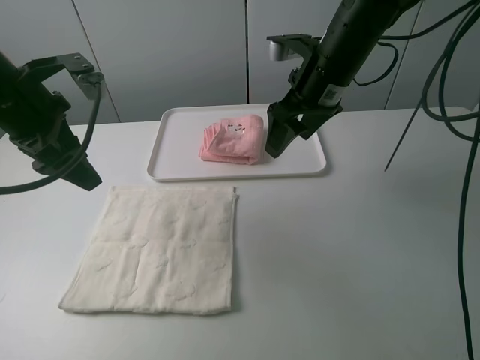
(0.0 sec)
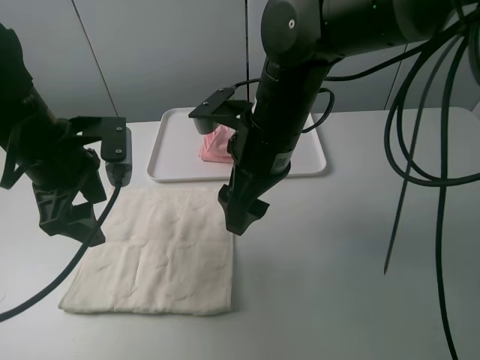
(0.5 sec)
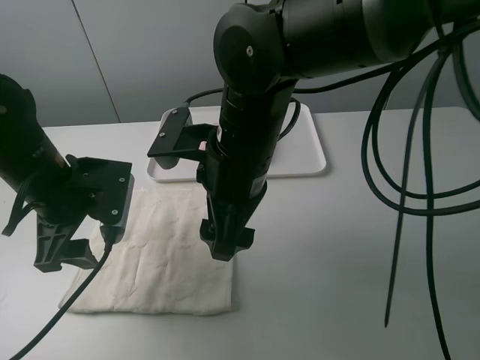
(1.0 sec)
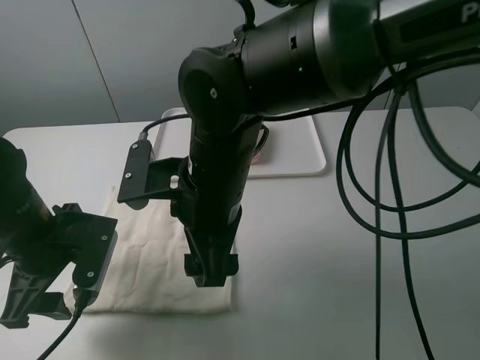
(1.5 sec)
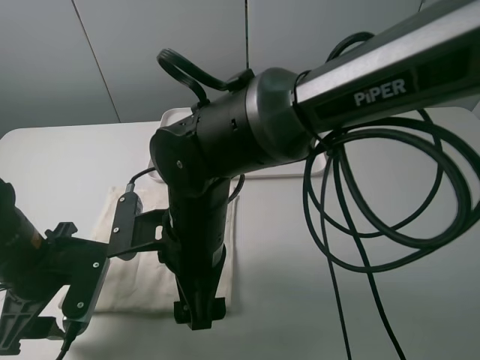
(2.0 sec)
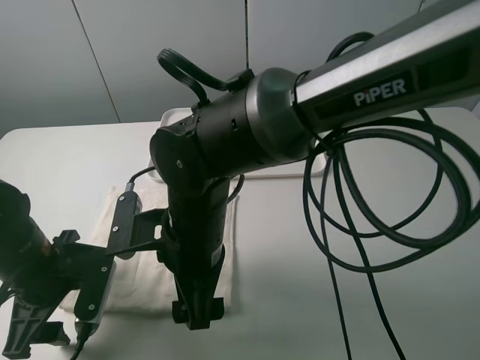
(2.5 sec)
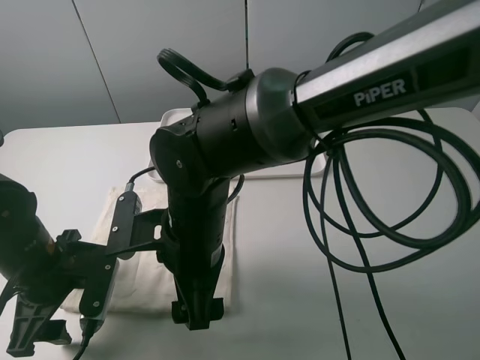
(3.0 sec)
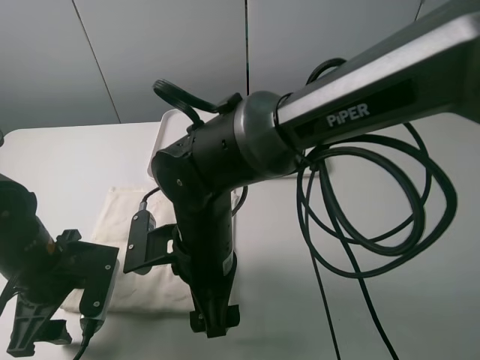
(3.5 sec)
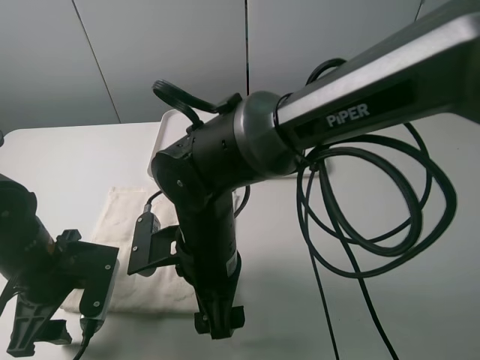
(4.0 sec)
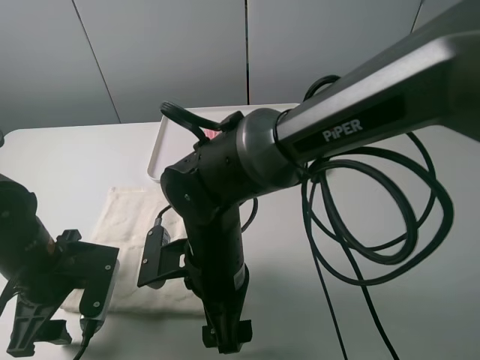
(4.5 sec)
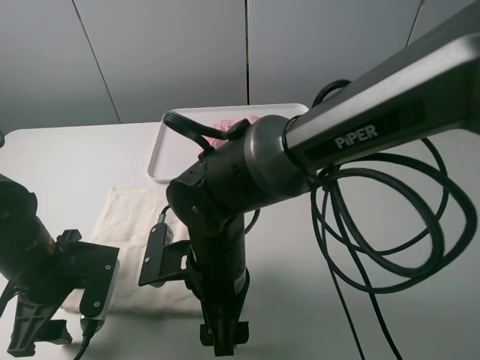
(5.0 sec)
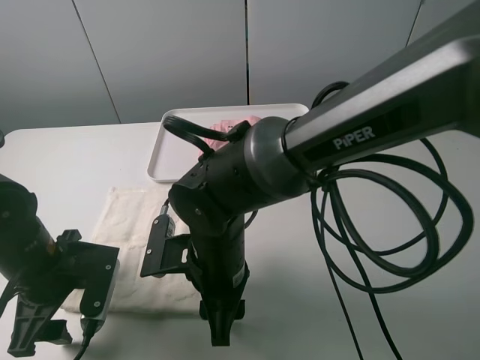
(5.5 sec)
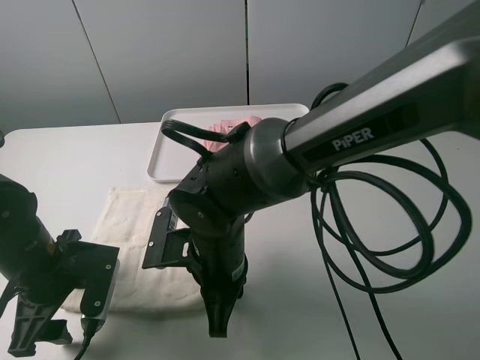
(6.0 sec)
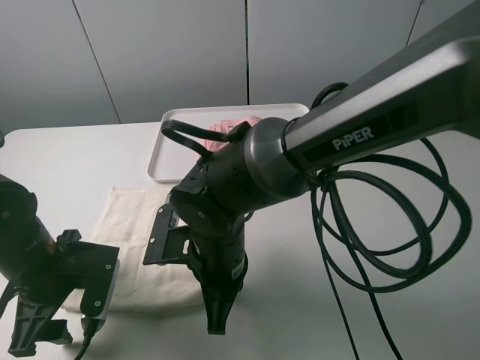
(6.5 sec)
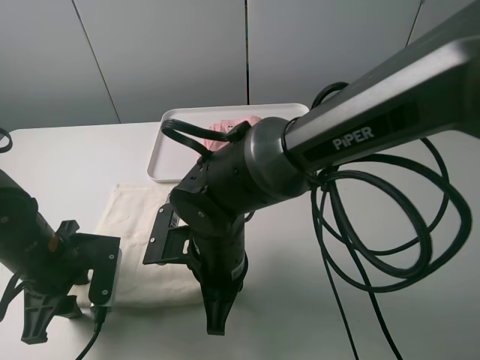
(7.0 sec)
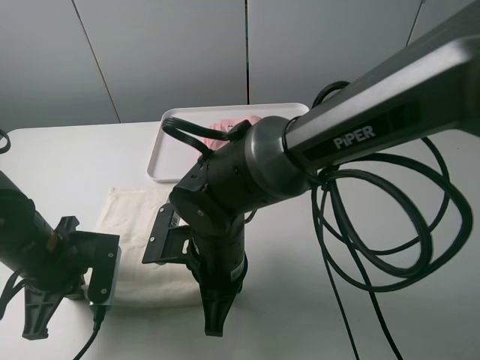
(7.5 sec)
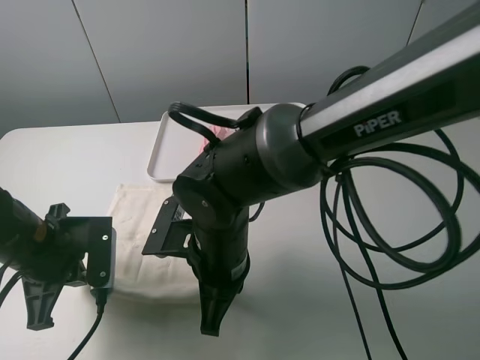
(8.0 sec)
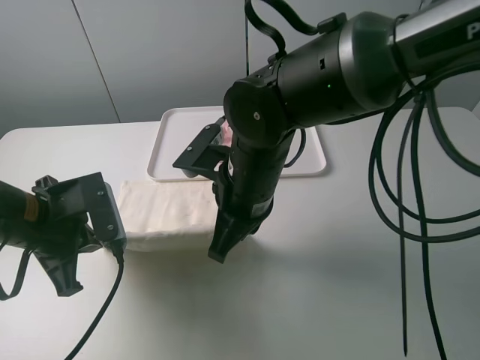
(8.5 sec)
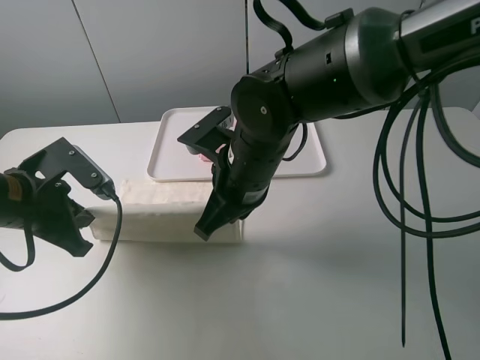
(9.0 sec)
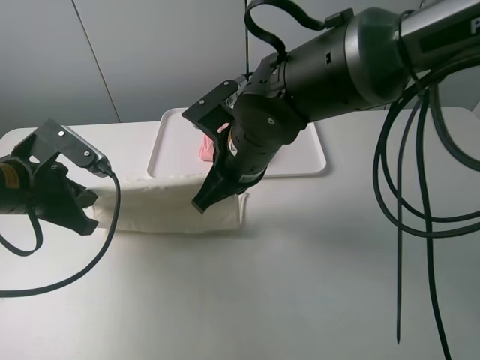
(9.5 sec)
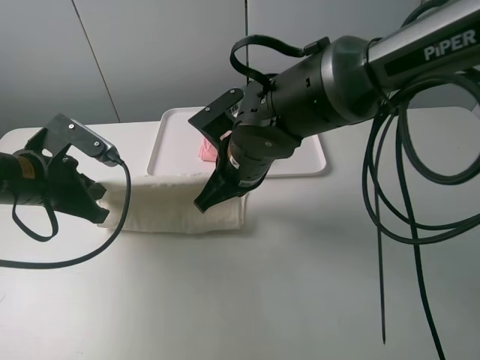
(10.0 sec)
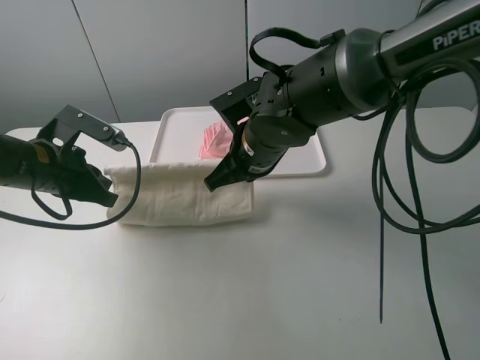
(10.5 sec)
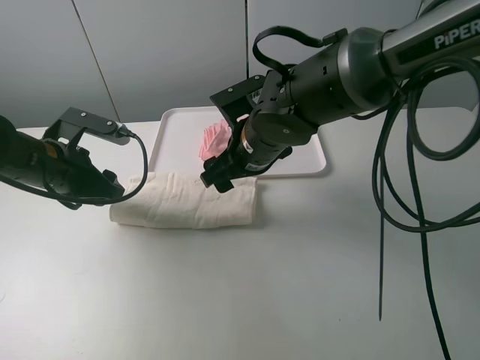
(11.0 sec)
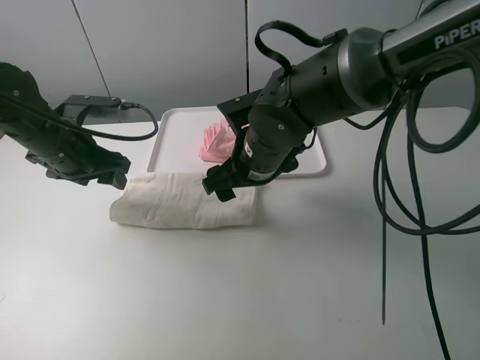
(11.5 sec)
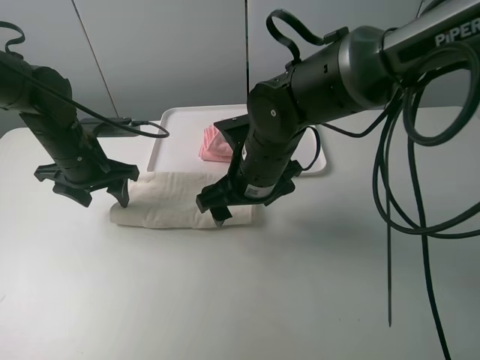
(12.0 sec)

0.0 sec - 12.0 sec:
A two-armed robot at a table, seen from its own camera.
Task of the whole recording: fold one of the towels by two grippers and place it on the tray,then fold another towel by two grippers and place it on the folded towel.
Step, 0.0 sec - 7.5 sec: Grasp the white towel with the left gripper.
Step, 8.0 sec - 11.0 sec: Fold the white towel upwards with the left gripper.
0.0 sec - 2.0 sec: The right gripper is displaced backward, to the left and downward by approximately 25 cm. Meanwhile the left gripper travels downward and backward by approximately 20 cm.
4.0 sec - 6.0 sec: The right gripper closes up.
6.0 sec - 8.0 sec: The left gripper closes up.
8.0 sec - 10.0 sec: The right gripper is displaced forward by about 10 cm. Meanwhile the left gripper moves forward, approximately 5 cm.
10.0 sec - 12.0 sec: The right gripper opens its fingers. The left gripper travels forward by roughly 10 cm, and opens its fingers.

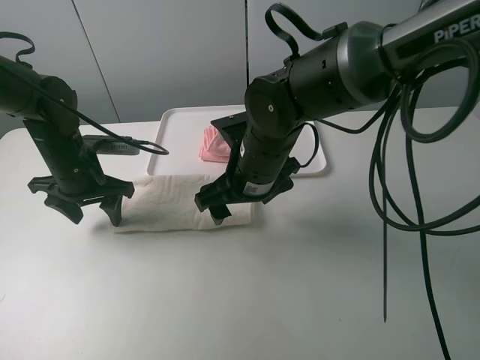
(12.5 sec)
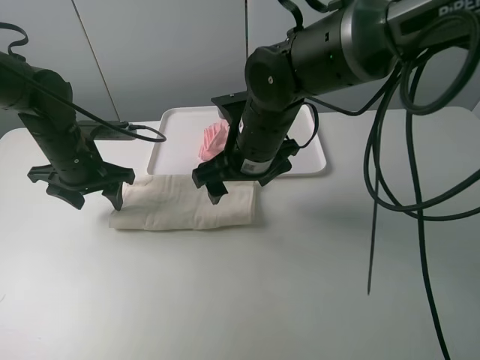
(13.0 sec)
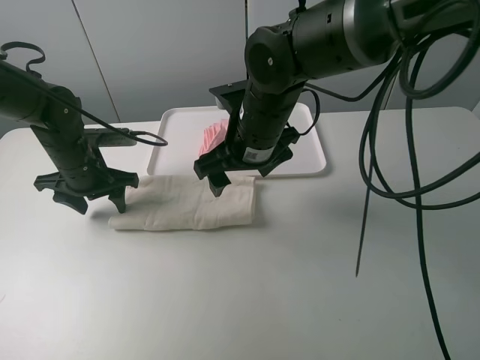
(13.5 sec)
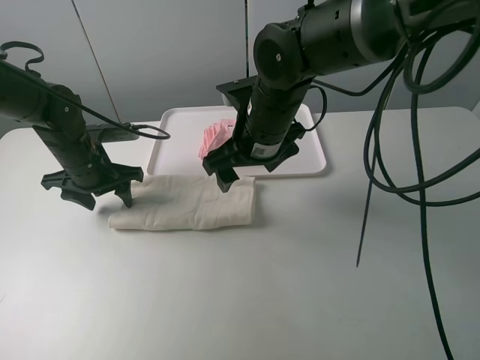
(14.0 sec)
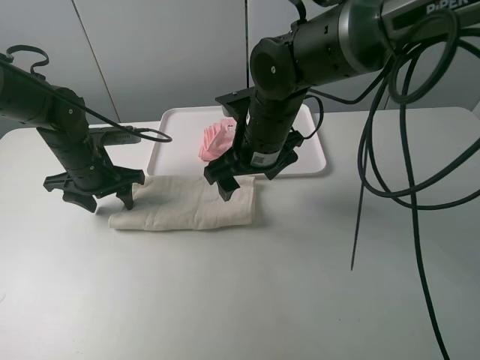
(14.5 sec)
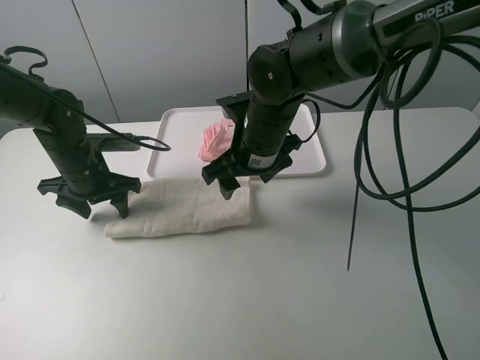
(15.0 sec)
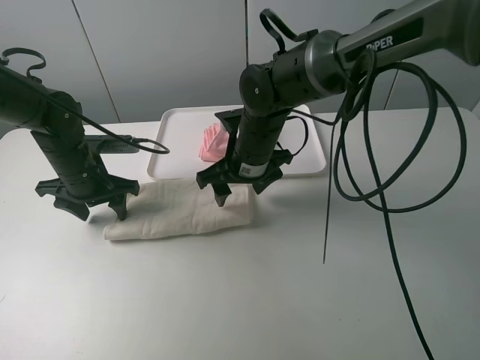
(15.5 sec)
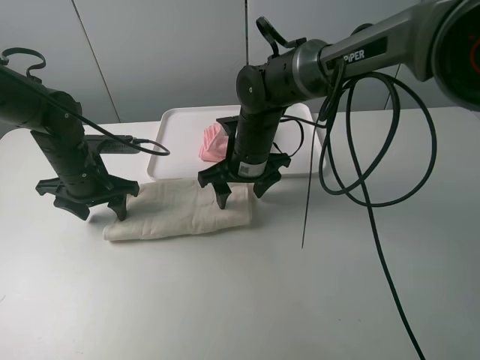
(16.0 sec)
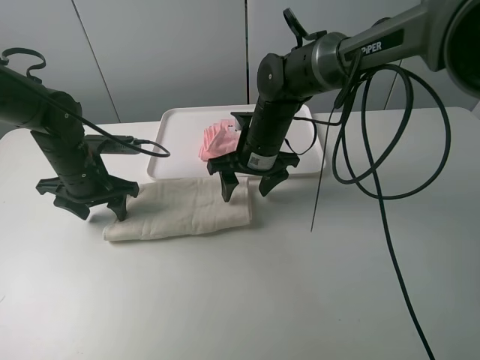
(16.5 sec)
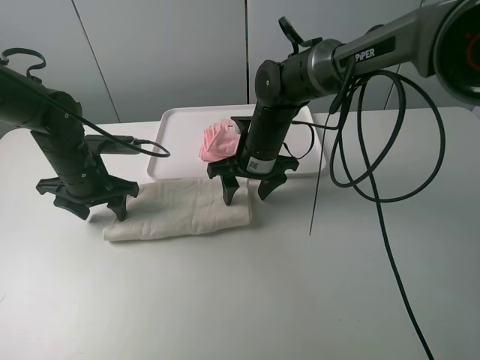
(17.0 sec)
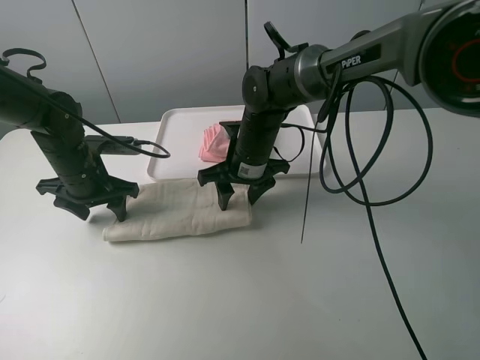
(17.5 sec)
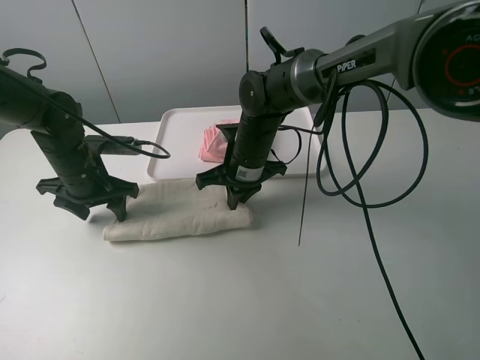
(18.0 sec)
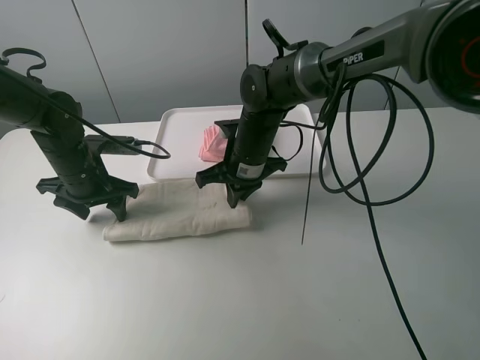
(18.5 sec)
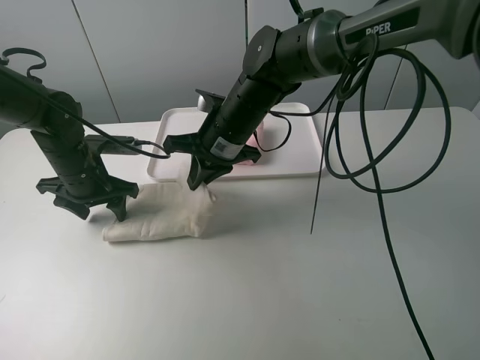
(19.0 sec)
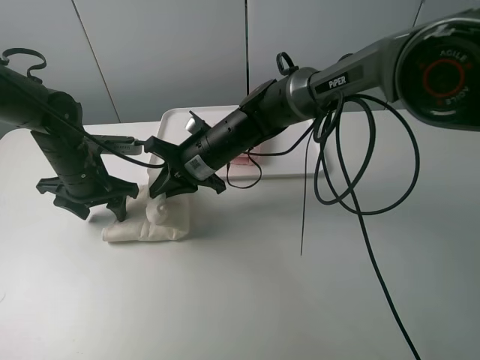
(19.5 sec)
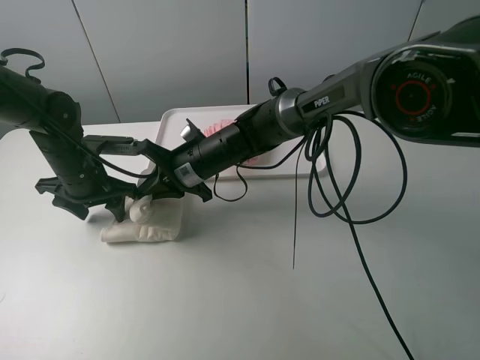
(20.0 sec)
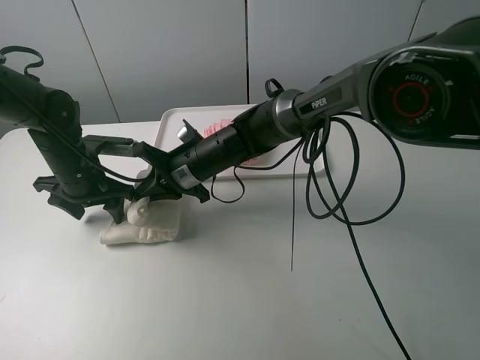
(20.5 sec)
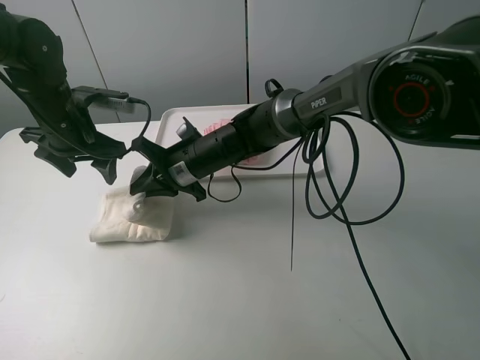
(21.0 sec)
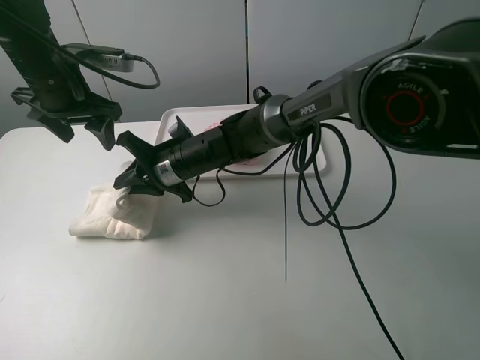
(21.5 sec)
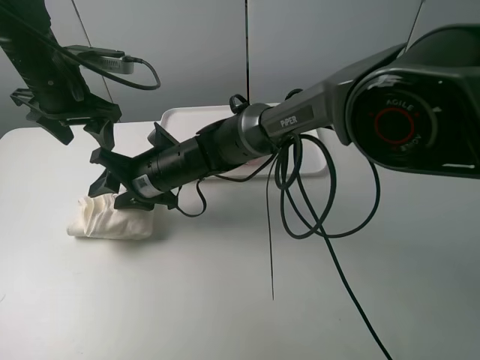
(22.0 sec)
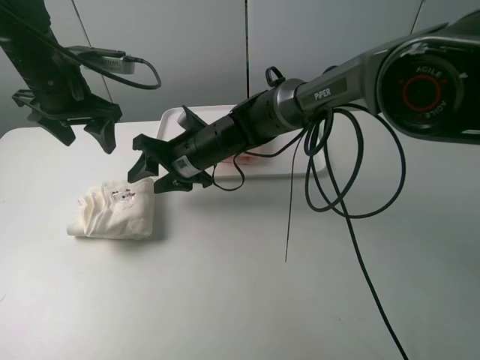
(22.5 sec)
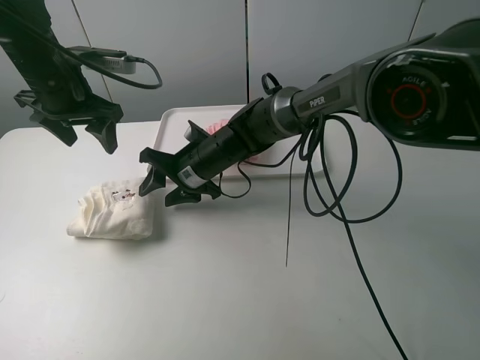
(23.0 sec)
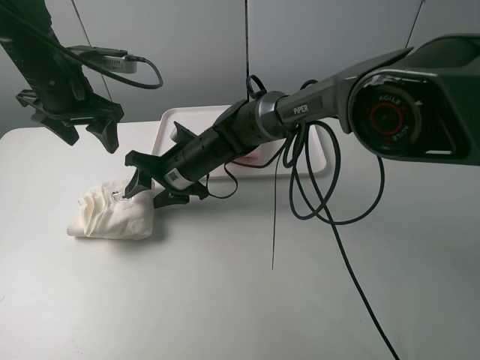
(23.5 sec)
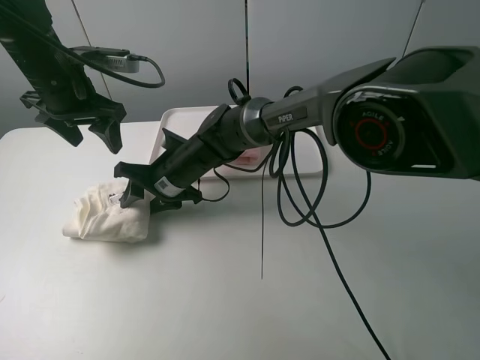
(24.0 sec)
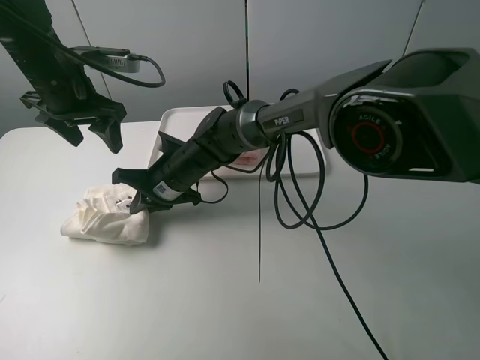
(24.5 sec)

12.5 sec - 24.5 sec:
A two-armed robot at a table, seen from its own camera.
Task of the whole recording: fold one of the towels by two grippers and place it on the tray,then fold another towel by two grippers and place it on the folded towel.
Step, 12.5 sec - 14.5 sec: Press the white towel with the left gripper.
Step, 15.0 sec - 18.0 sec: Grasp the white towel with the right gripper.
Step, 18.5 sec - 22.0 sec: Fold the white towel from right to left with right gripper.
Step, 22.5 sec - 24.0 sec: Grasp the white towel with the right gripper.
14.5 sec - 16.5 sec: The right gripper heads forward and downward, covering about 10 cm.
16.5 sec - 18.5 sec: The right gripper closes up.
18.5 sec - 20.5 sec: The right gripper is displaced to the left by roughly 5 cm.
20.5 sec - 22.5 sec: The right gripper opens up. Meanwhile the left gripper heads upward, covering some 15 cm.
22.5 sec - 24.5 sec: The right gripper changes place by roughly 5 cm, and closes.

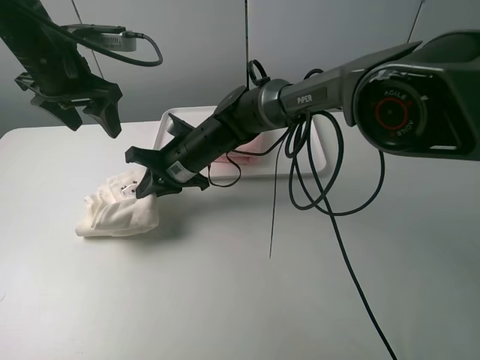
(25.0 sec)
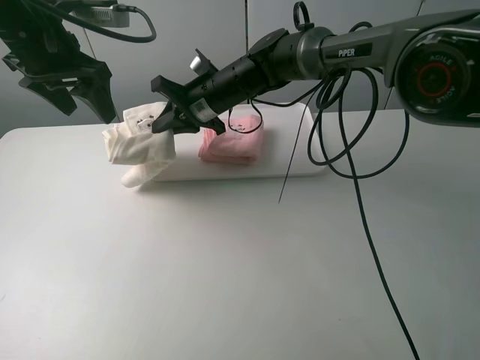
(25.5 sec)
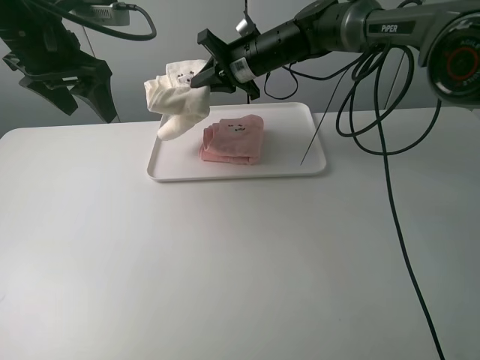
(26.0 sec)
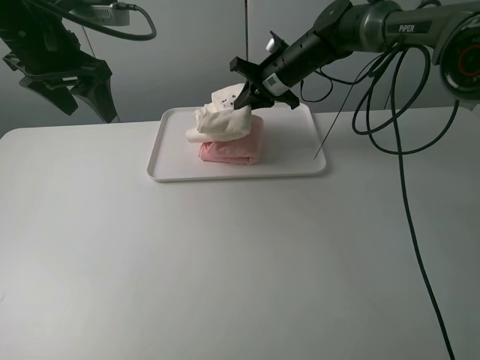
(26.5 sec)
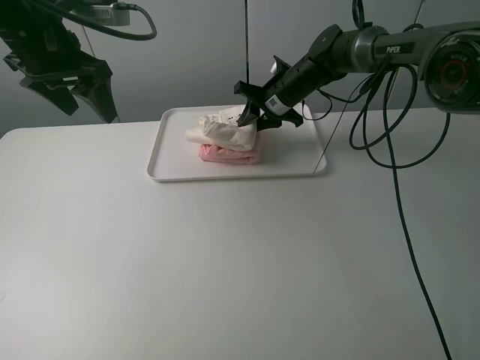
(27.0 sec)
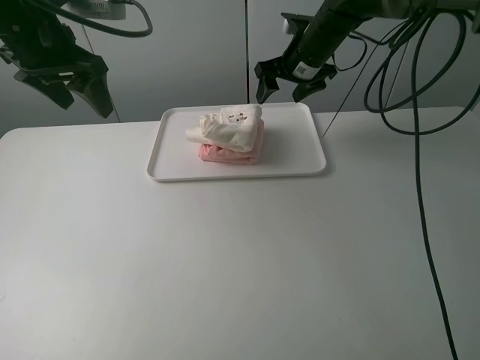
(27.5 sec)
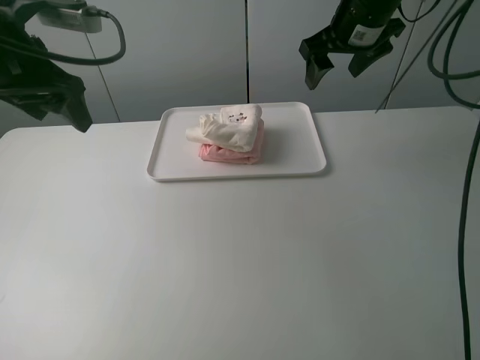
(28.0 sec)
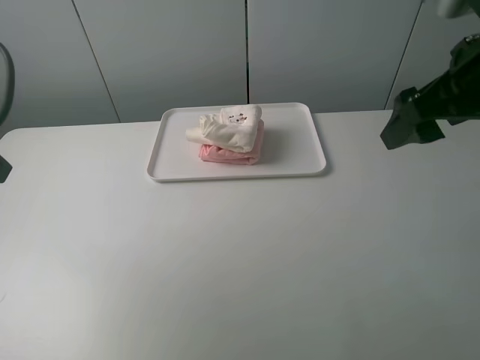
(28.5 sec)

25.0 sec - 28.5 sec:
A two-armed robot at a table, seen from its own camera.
Task of the whole recording: fold one of the towels by two grippers and place it on the tray,then fold another towel by two grippers and place it on the folded towel.
Step, 25.0 sec - 27.0 sec: Place the white towel on the pink towel with the right gripper.
25.0 sec - 27.0 sec: The right gripper is displaced to the right and forward by about 20 cm, and opens its fingers.
27.0 sec - 28.5 sec: The left gripper heads backward, covering roughly 20 cm; the right gripper goes approximately 35 cm backward, upward and to the right, and opens up.
